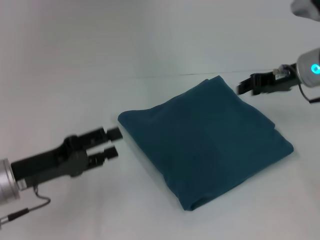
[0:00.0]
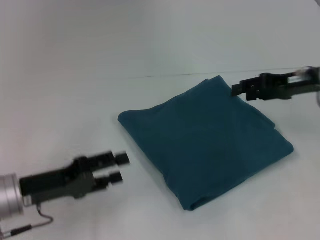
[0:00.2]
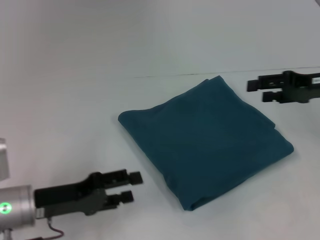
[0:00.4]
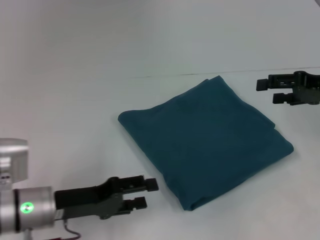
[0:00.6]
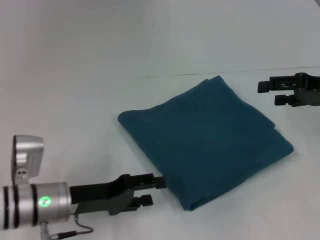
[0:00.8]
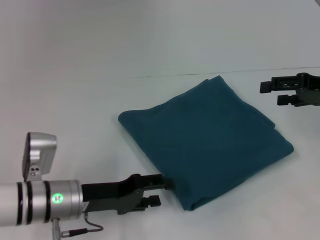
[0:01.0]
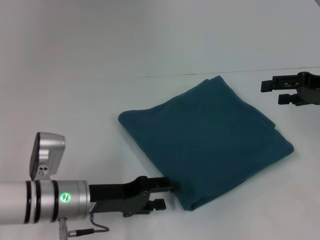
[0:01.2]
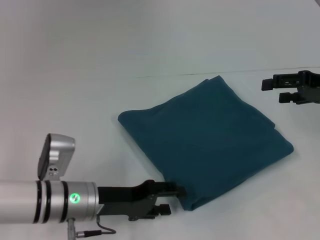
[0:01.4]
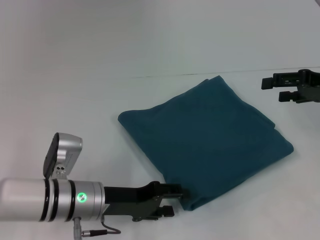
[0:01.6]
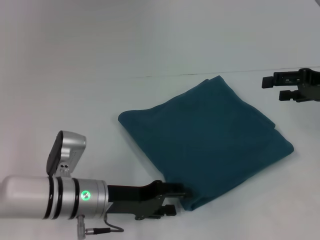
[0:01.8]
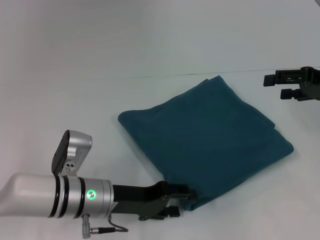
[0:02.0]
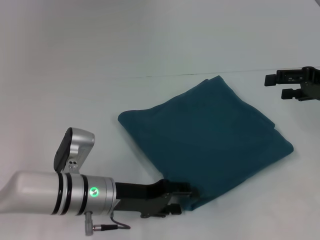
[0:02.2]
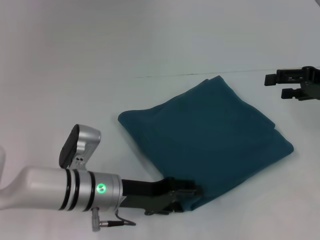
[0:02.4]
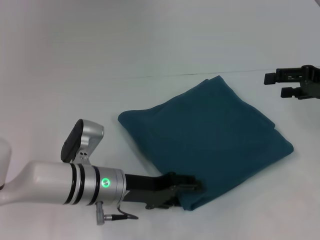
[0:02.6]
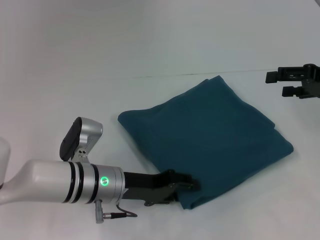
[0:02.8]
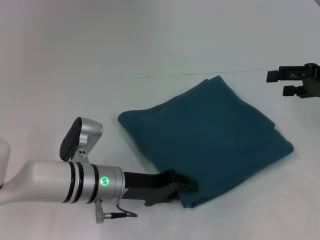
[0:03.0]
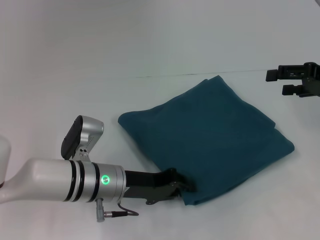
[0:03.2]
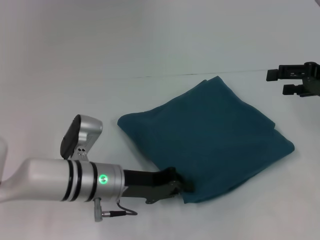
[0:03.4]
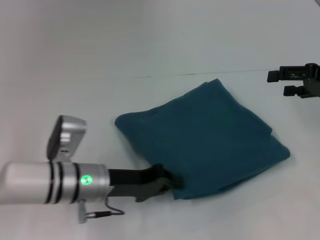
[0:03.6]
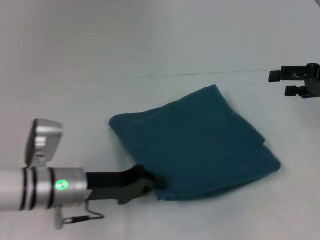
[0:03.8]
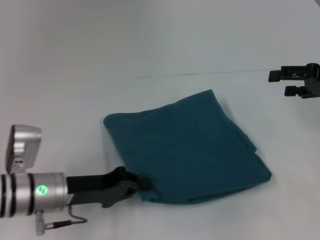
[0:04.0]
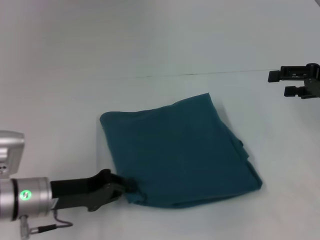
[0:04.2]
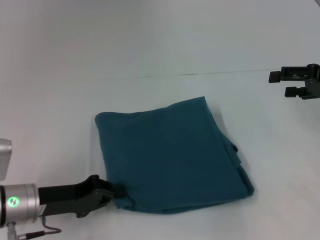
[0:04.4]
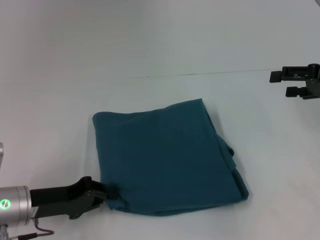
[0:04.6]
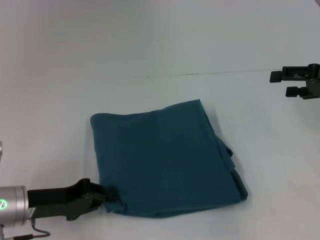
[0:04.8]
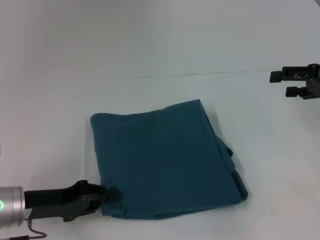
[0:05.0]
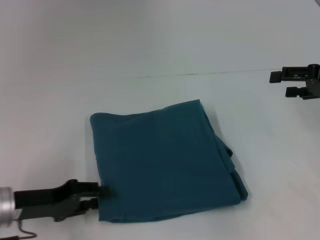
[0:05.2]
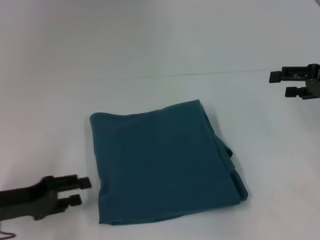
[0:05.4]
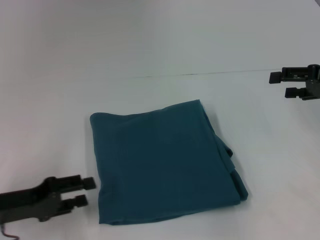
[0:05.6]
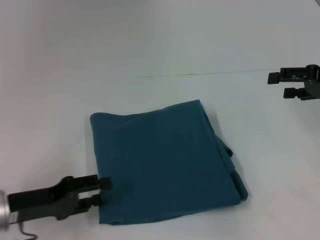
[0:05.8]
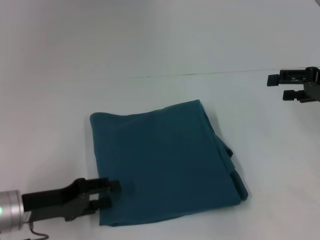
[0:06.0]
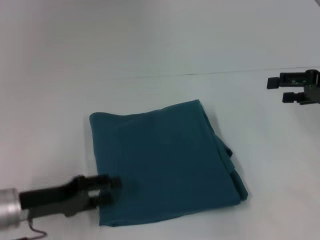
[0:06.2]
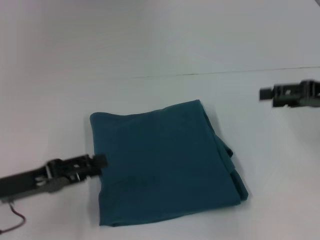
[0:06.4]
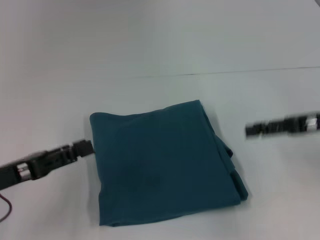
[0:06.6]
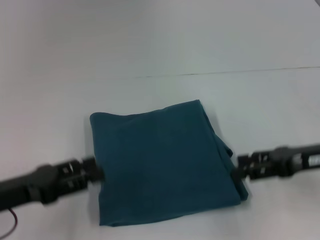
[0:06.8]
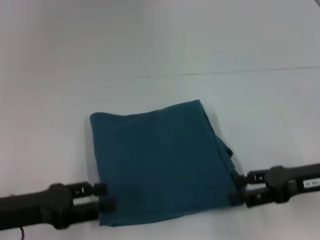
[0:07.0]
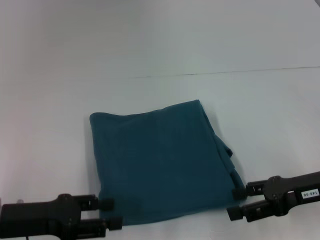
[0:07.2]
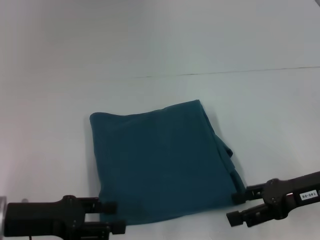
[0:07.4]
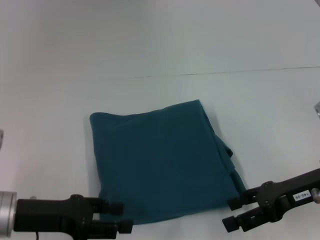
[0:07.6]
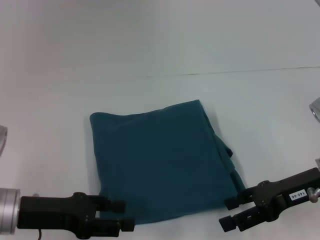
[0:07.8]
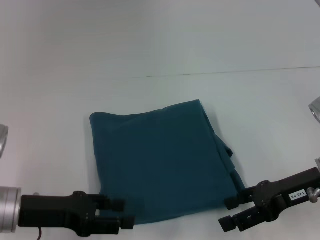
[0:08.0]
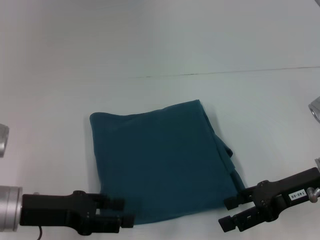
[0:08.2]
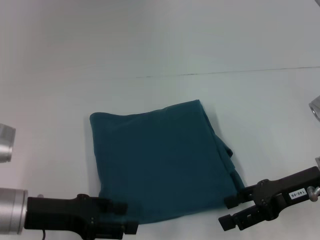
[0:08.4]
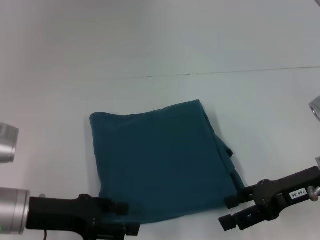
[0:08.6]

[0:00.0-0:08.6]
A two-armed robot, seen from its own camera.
0:00.0 to 0:01.4: The left gripper is displaced to the right by some 10 cm; the right gripper shifts some 10 cm to the right and backward, and opens.
0:01.4 to 0:02.8: The grippers stay close to where they were, moving slightly.
0:02.8 to 0:04.4: The left gripper is displaced to the left by roughly 10 cm, and closes its fingers.
0:04.4 to 0:05.8: The left gripper opens.
0:05.8 to 0:07.2: The right gripper shifts approximately 15 cm backward, downward and to the left.
0:07.2 to 0:08.6: The grippers make only small movements.

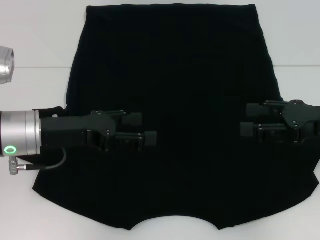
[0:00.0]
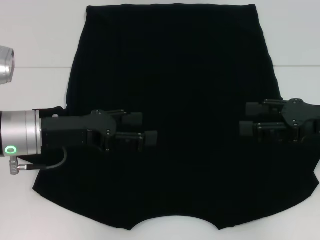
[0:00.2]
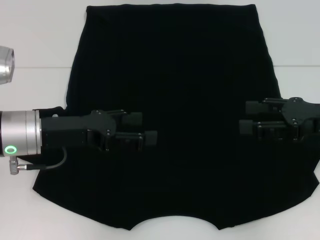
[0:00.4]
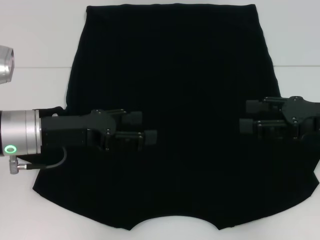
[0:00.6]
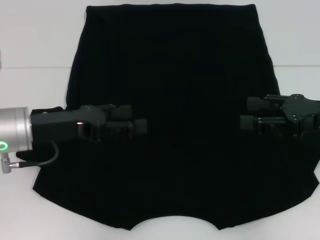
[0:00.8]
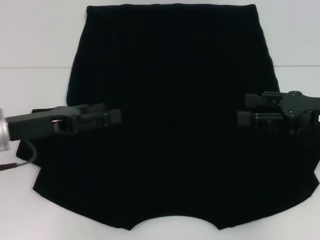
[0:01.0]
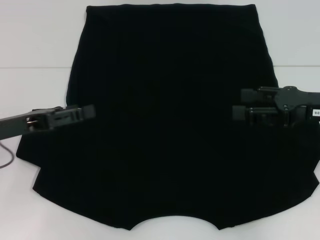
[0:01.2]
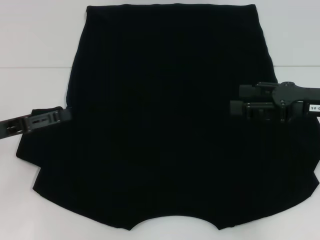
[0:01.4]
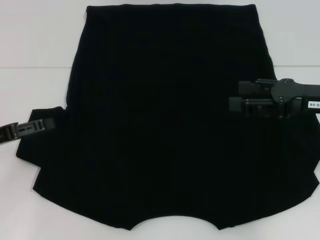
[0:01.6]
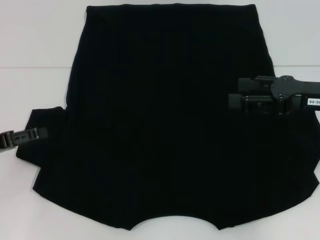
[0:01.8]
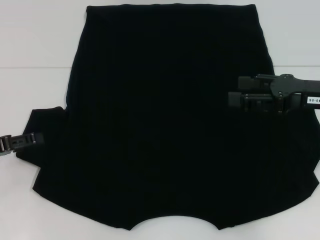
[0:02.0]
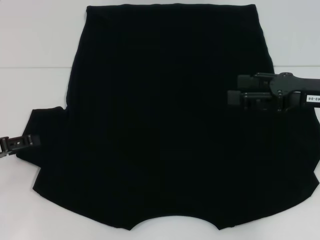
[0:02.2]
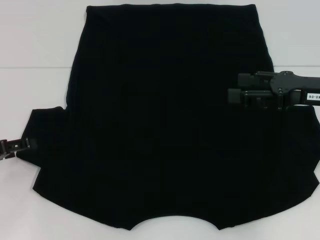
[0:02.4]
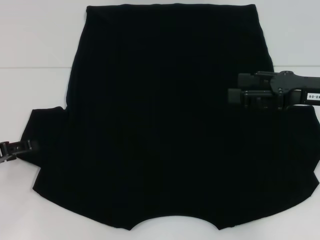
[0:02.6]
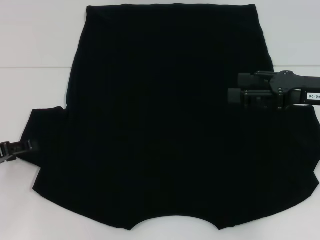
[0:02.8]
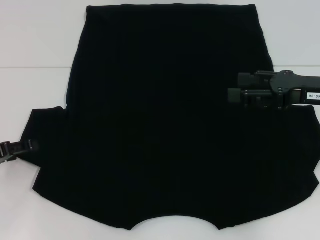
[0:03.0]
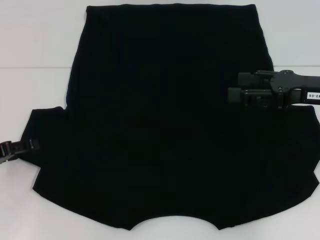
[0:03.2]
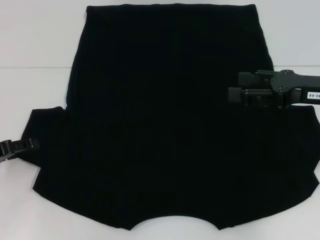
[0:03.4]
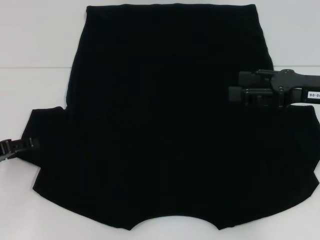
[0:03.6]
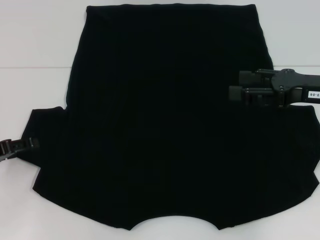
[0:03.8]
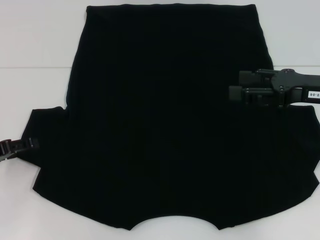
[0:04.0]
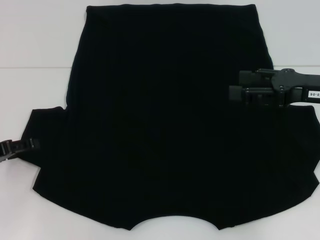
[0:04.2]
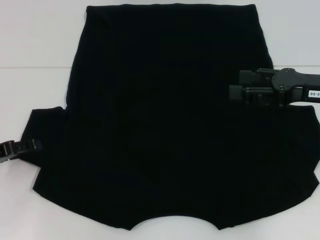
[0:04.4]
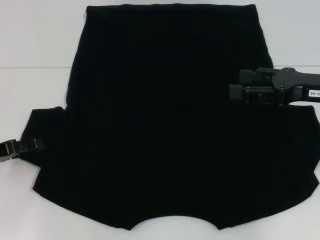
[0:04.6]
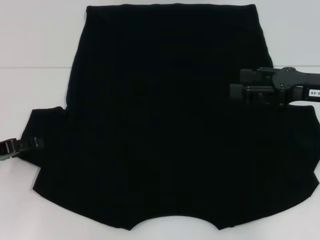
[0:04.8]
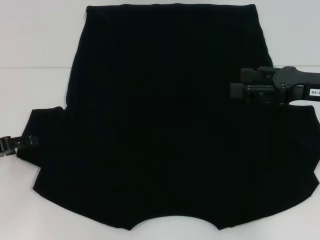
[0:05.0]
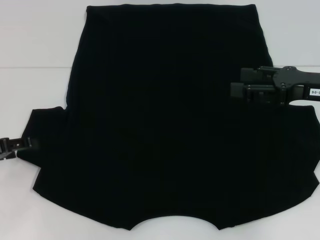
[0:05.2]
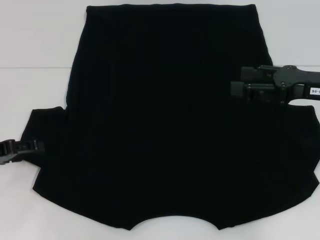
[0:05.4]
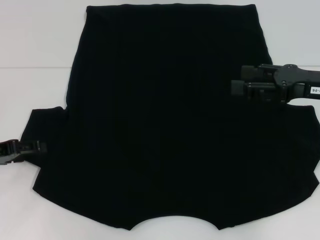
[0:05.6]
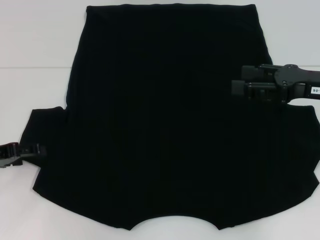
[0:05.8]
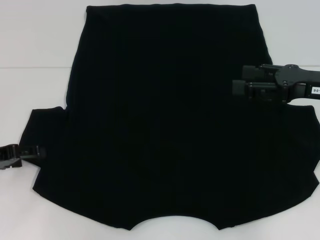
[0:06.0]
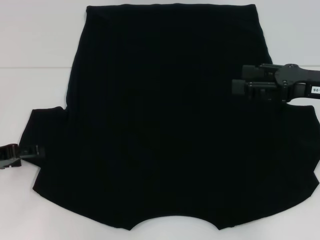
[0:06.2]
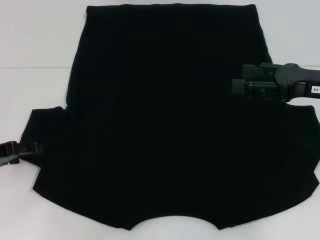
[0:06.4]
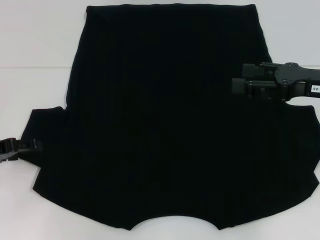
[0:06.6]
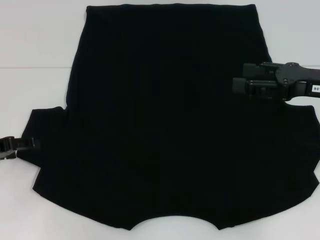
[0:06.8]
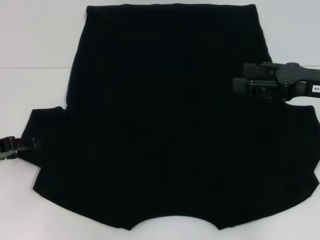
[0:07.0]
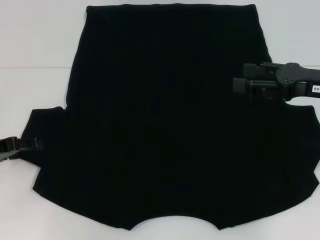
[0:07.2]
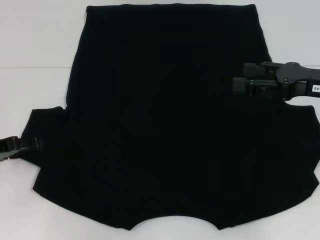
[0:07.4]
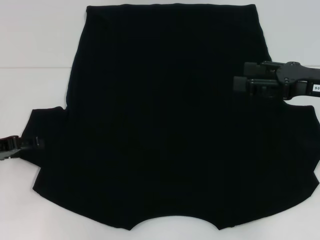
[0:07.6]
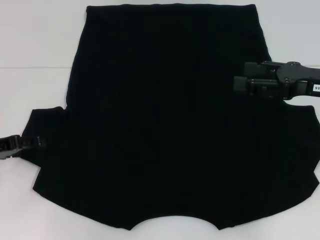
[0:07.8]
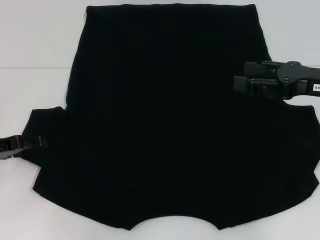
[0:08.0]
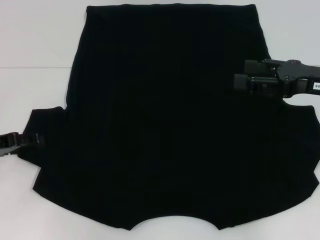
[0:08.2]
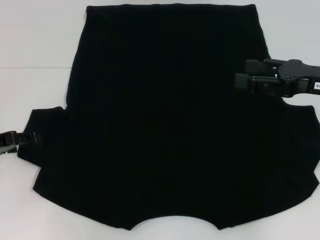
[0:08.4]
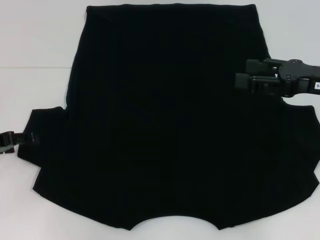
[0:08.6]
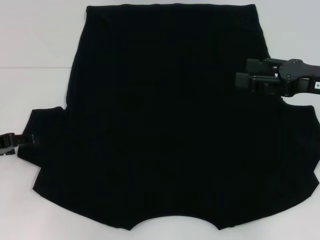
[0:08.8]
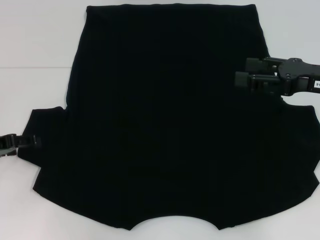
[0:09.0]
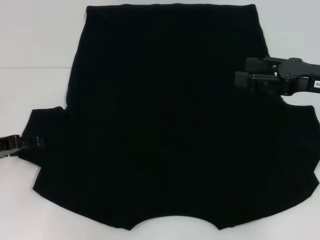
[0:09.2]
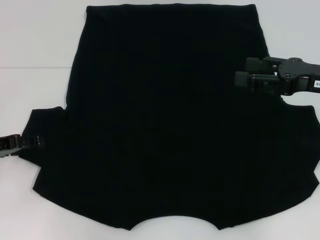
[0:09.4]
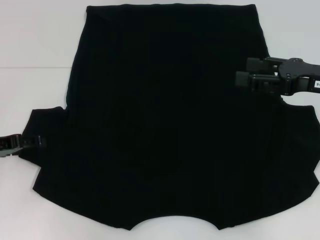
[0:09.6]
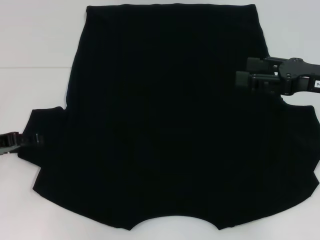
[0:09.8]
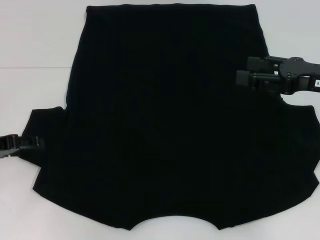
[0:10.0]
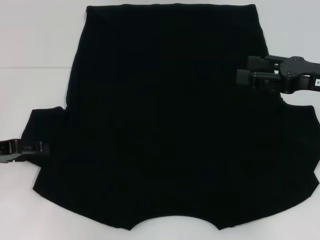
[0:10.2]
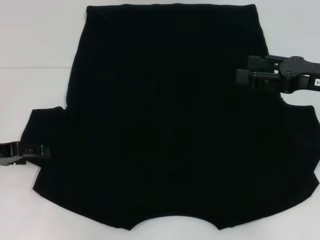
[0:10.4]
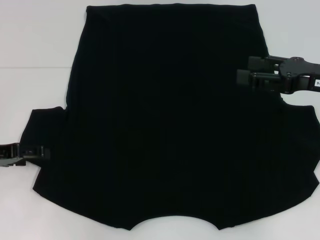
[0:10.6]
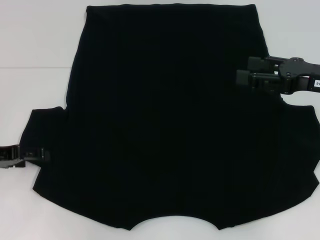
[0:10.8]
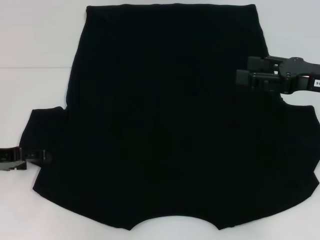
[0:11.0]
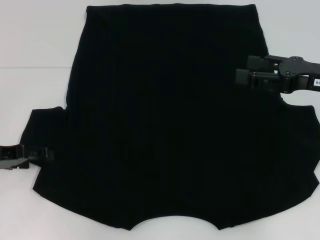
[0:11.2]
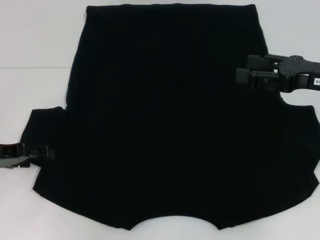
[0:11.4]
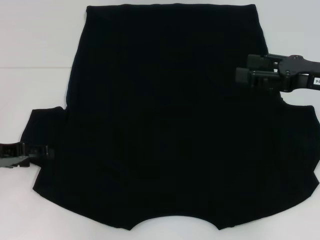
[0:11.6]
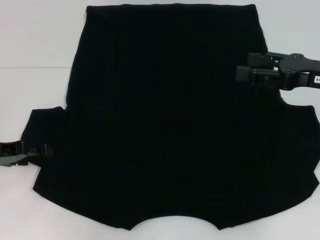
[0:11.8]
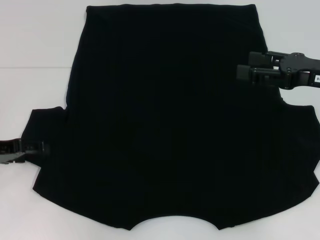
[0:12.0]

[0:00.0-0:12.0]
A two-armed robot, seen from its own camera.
0:00.0 to 0:01.6: The left gripper travels to the left by some 10 cm.
0:01.6 to 0:03.0: The grippers move only a little.
0:03.0 to 0:04.4: Both grippers stay put.
0:04.4 to 0:06.0: The grippers move only a little.
0:06.0 to 0:07.6: Both grippers stay put.
0:07.6 to 0:09.0: Both grippers stay about where they are.
0:09.0 to 0:10.4: The grippers move only a little.
0:10.4 to 0:12.0: Both grippers stay about where they are.

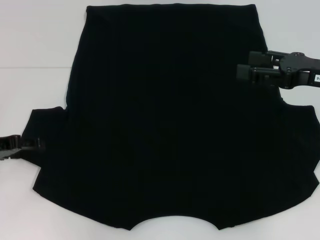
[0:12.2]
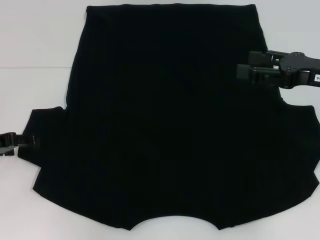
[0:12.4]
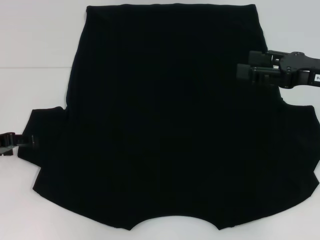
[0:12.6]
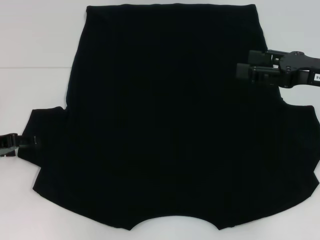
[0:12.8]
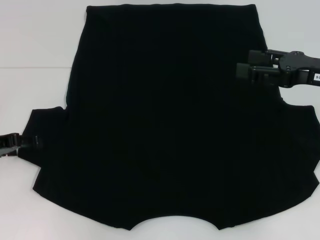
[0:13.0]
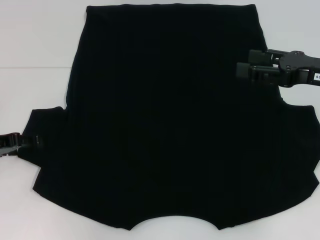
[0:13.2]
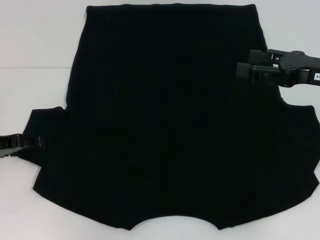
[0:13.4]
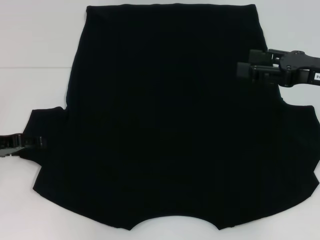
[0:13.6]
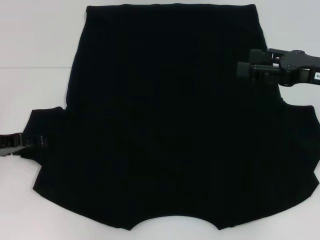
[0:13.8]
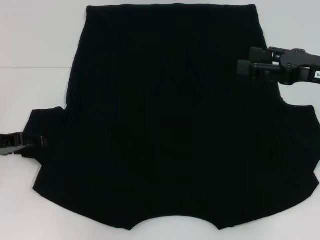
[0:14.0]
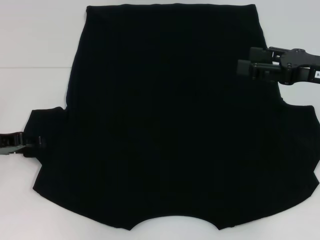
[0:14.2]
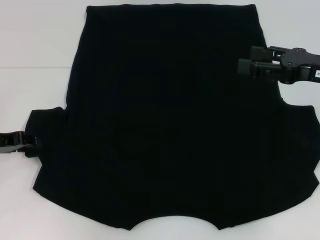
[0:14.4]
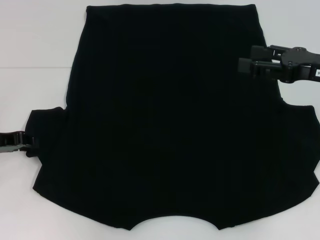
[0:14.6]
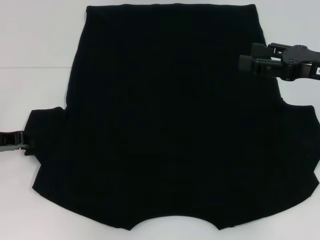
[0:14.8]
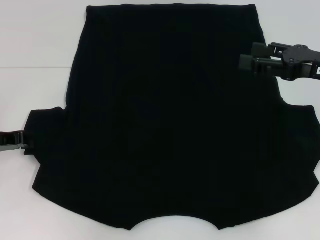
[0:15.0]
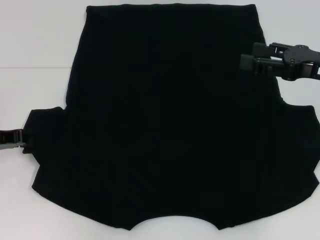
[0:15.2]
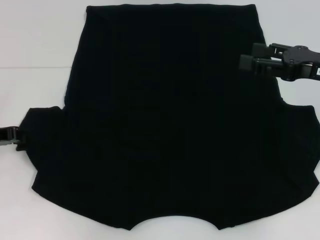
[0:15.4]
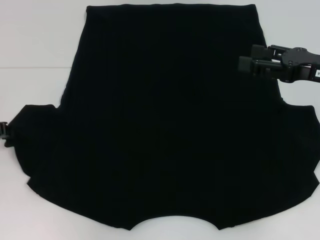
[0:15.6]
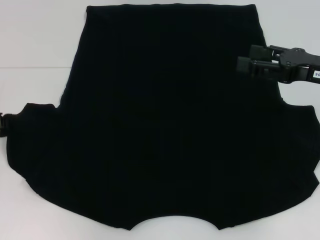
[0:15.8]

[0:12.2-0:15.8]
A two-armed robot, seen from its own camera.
0:12.2 to 0:14.0: Both grippers stay about where they are.
0:14.0 to 0:15.8: The left gripper closes.
